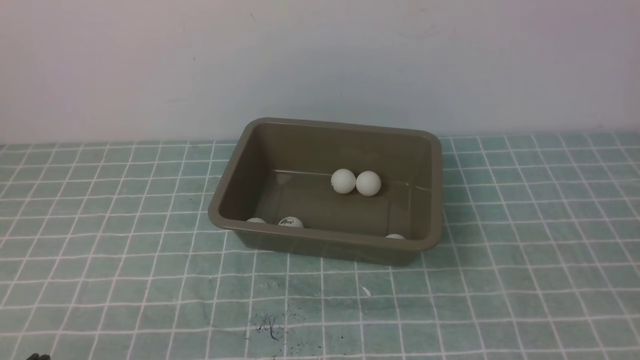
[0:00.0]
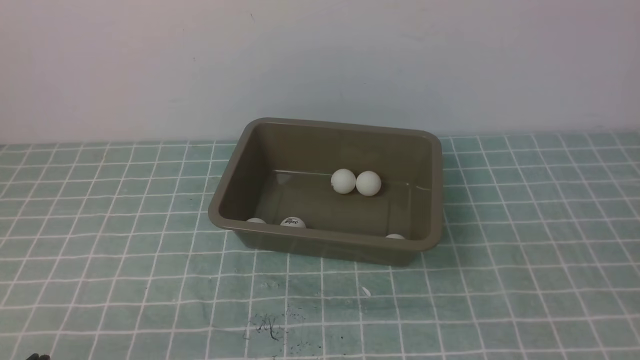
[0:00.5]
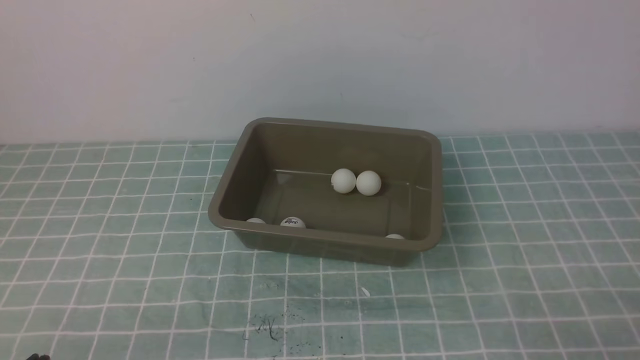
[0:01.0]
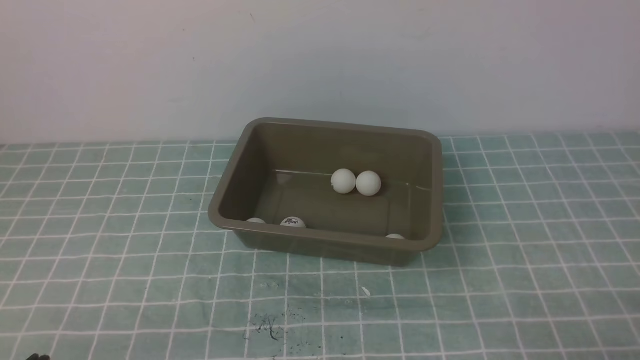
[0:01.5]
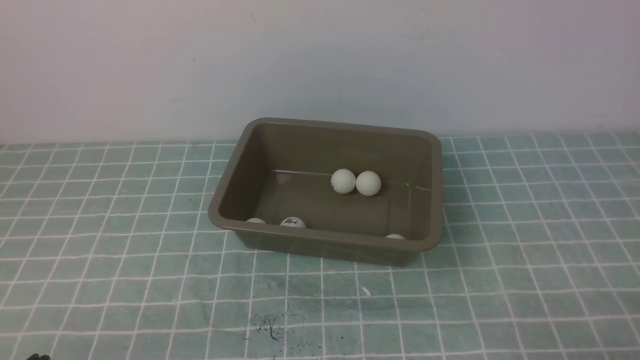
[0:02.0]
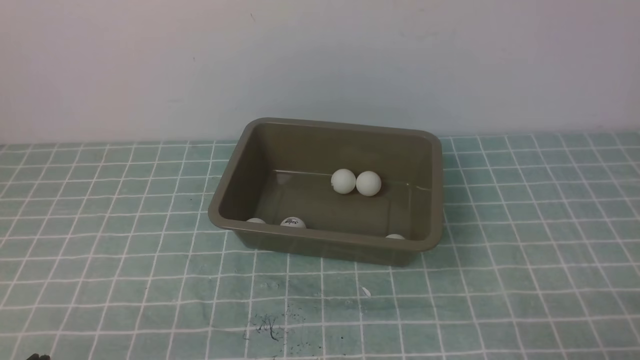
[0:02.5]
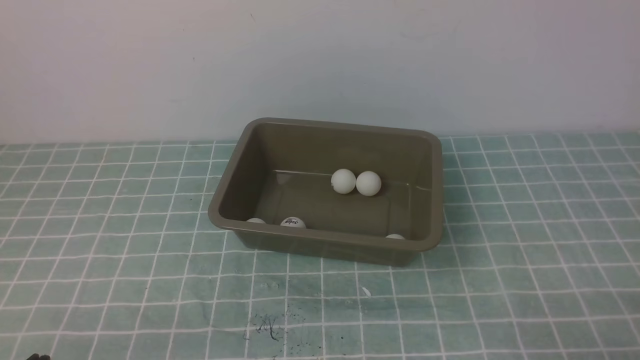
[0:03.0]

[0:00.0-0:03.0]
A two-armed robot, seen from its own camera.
0:01.5 to 0:03.0: The two grippers keep their place.
